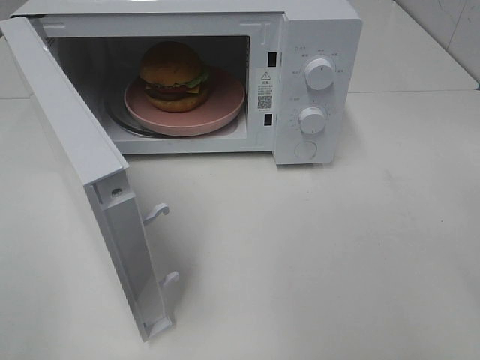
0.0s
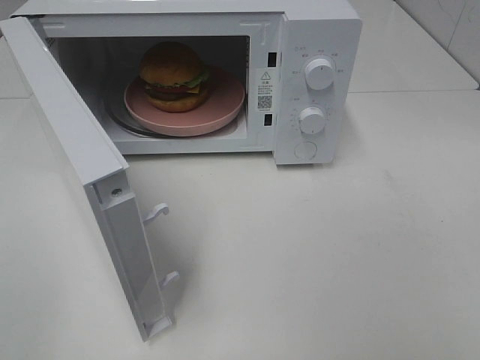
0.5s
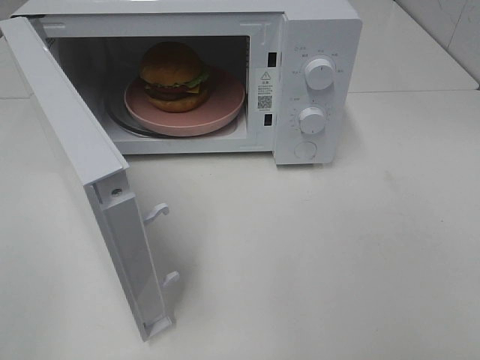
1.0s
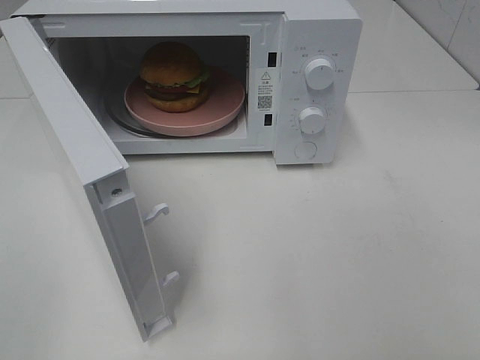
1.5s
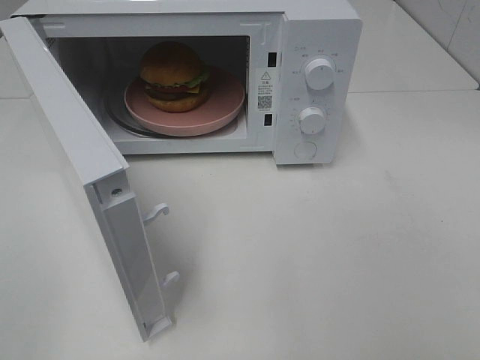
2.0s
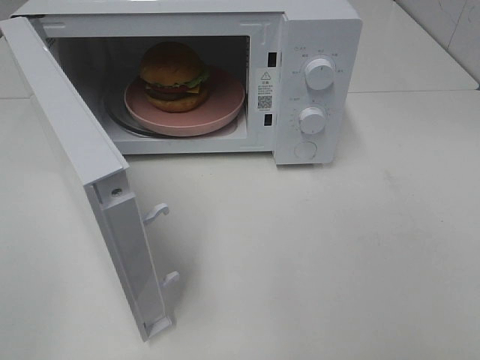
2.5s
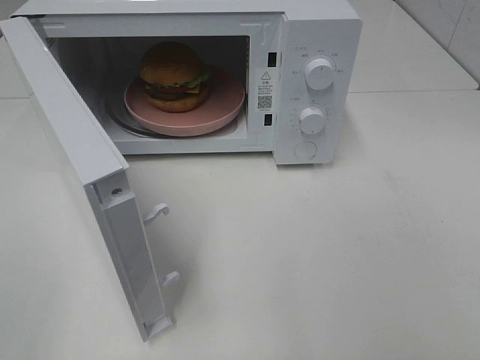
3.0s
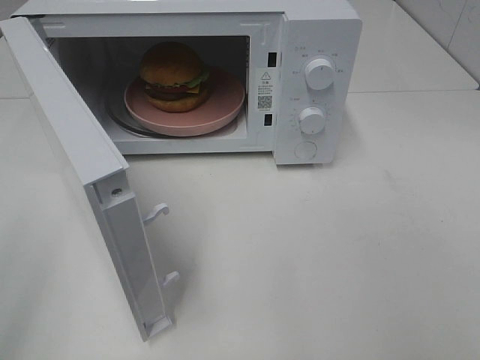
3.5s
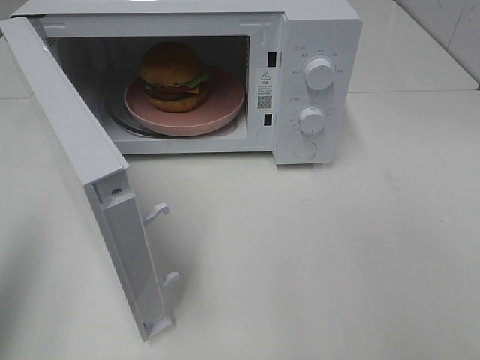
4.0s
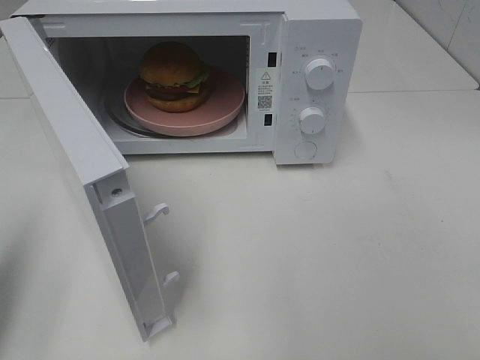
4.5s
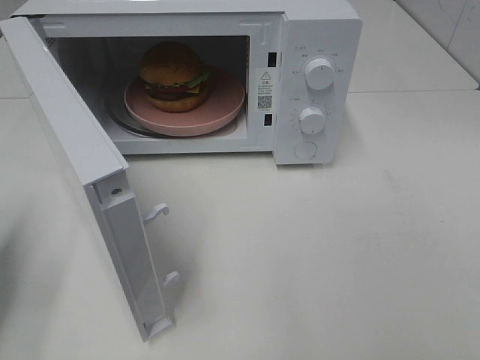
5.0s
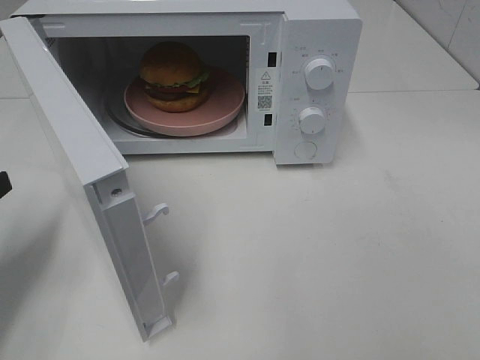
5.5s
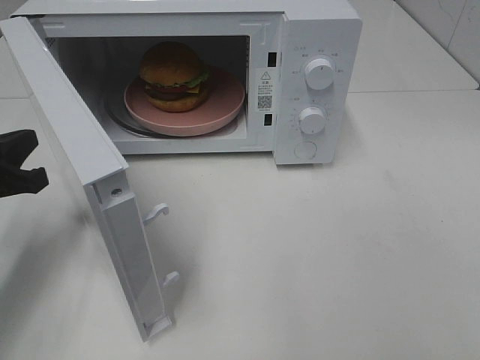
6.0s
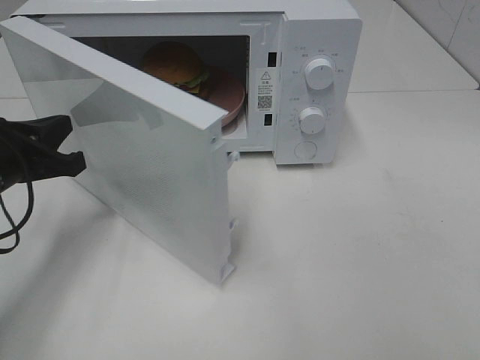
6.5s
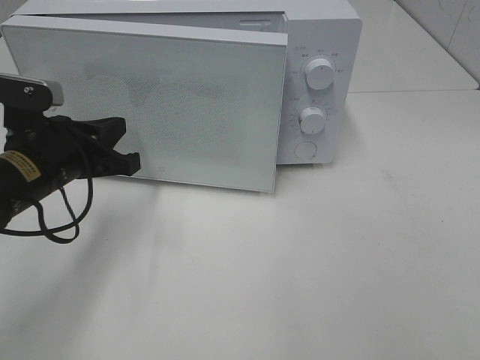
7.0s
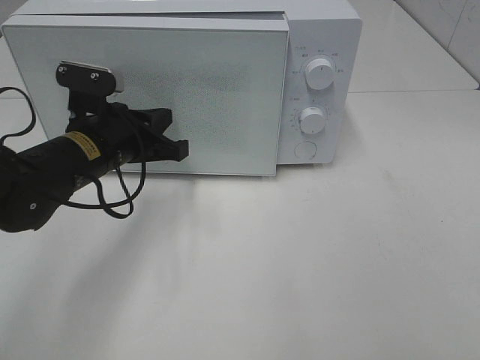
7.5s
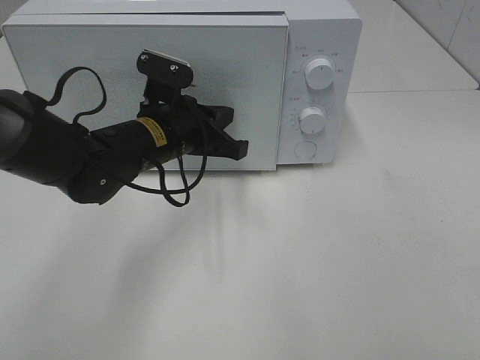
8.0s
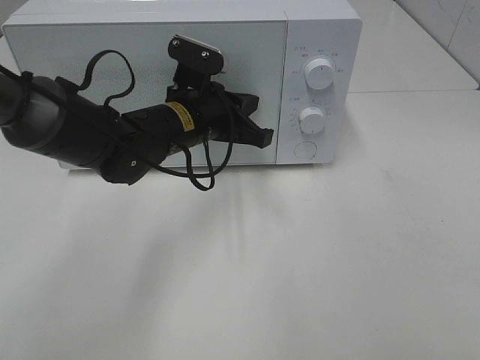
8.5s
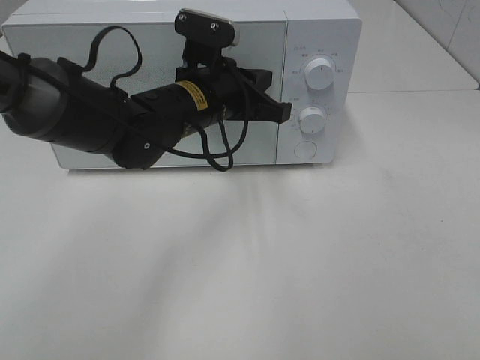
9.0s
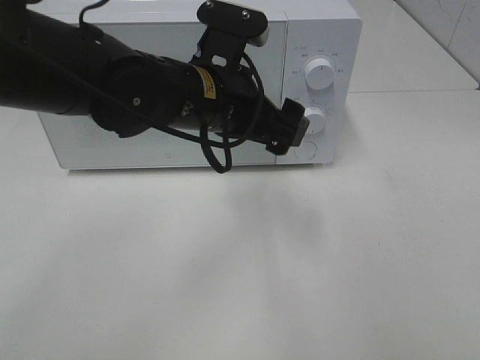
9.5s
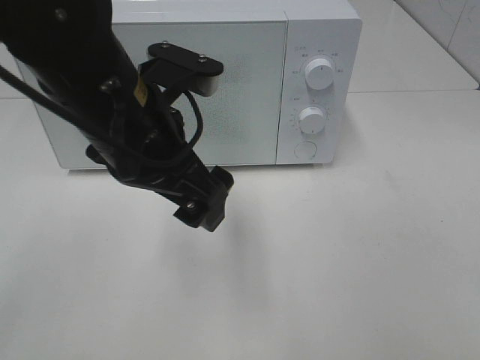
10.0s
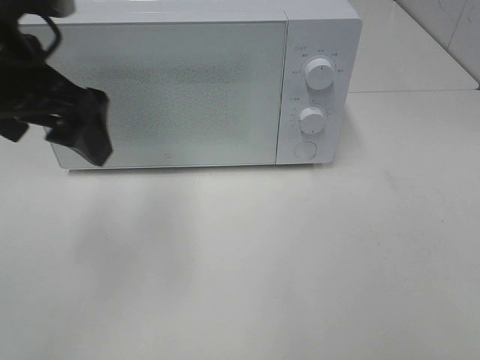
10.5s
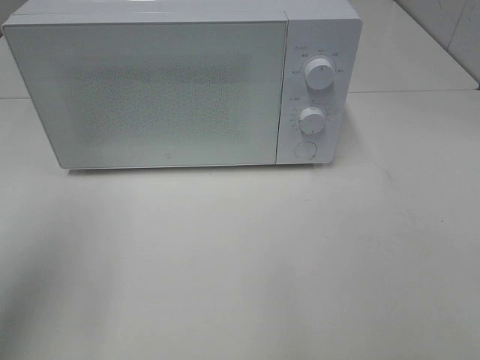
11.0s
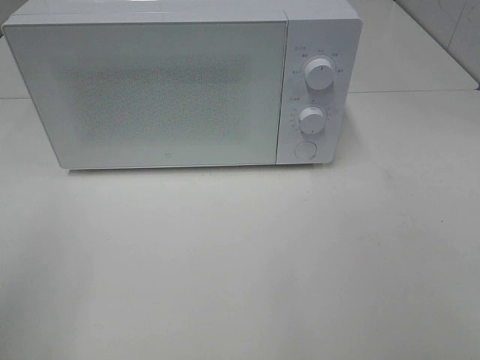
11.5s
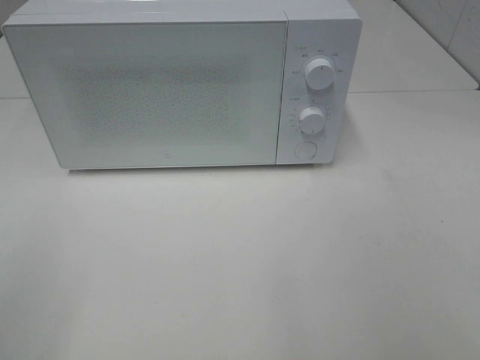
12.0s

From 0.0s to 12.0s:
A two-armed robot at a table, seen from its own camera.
Task of the whole recording: Heat the burger.
Step, from 0.0s to 9.0s: Left hand: close the microwave door.
From 2.0s to 4.0s: The left gripper travels forward by some 10 cm, and closes up.
From 4.0s to 6.0s: The left gripper travels downward and forward by about 25 cm.
From 6.0s to 8.0s: The left gripper goes approximately 20 cm to the right and forward.
From 8.0s to 10.0s: The left gripper moves upward and backward, roughly 15 cm, and opens its fingers.
From 10.0s to 12.0s: The left gripper goes some 30 cm to the left and backward.

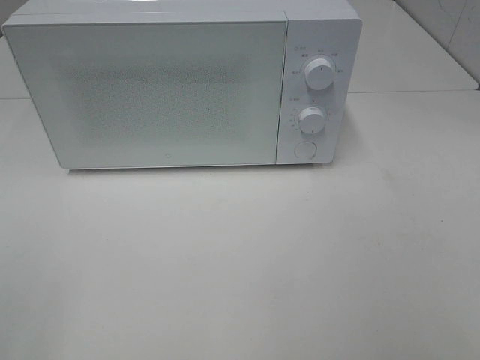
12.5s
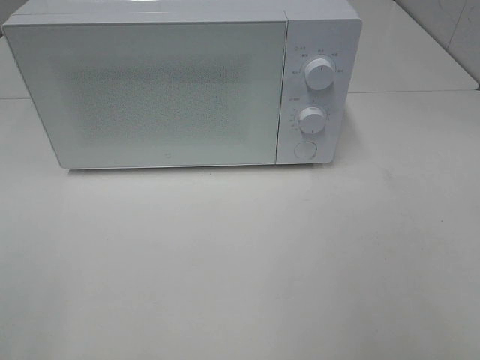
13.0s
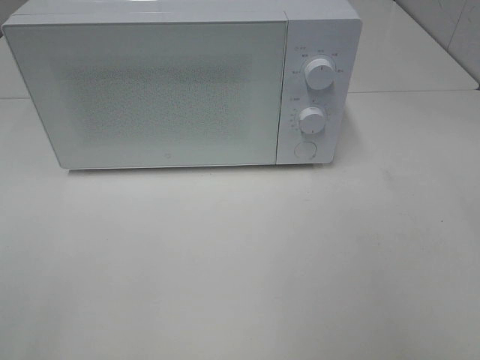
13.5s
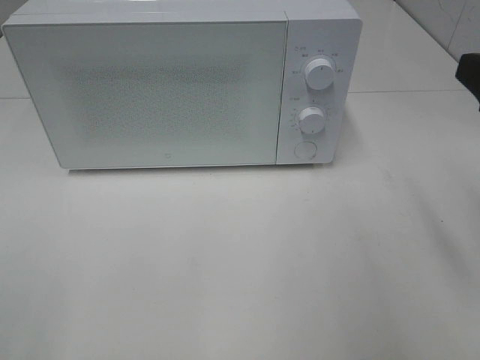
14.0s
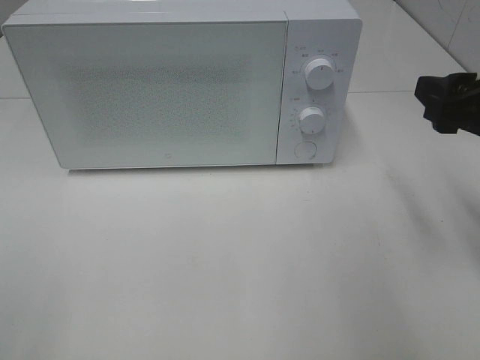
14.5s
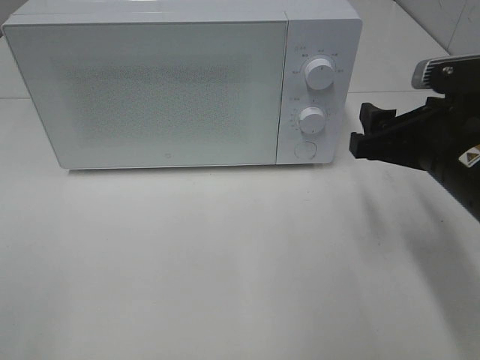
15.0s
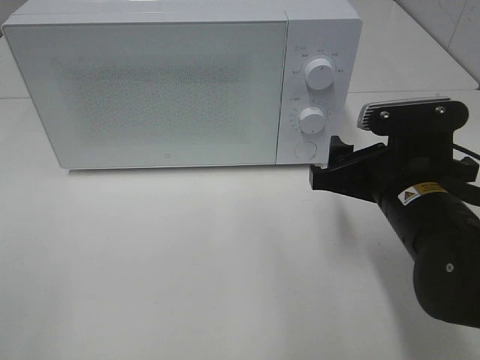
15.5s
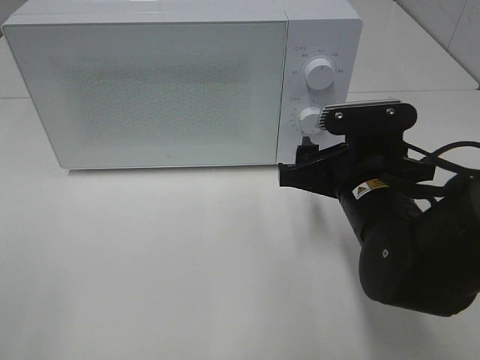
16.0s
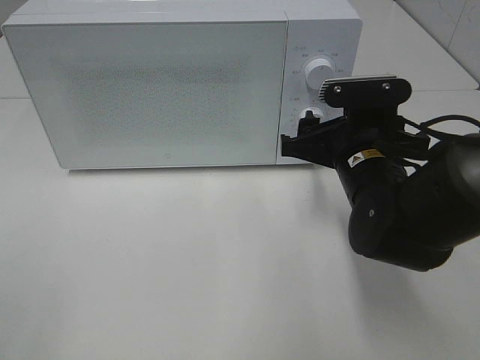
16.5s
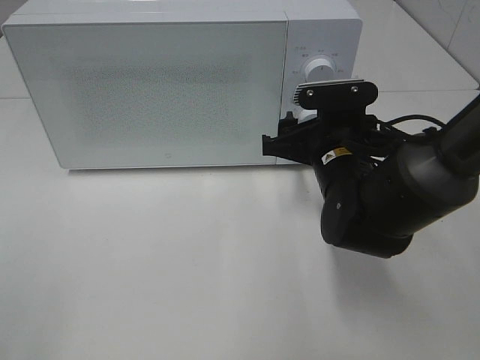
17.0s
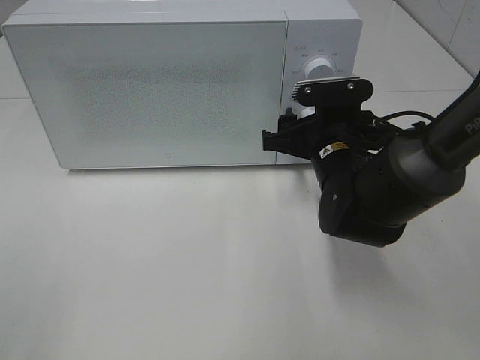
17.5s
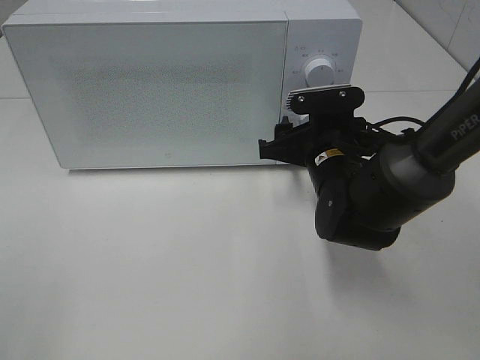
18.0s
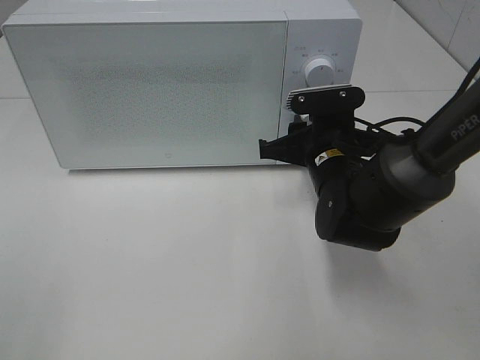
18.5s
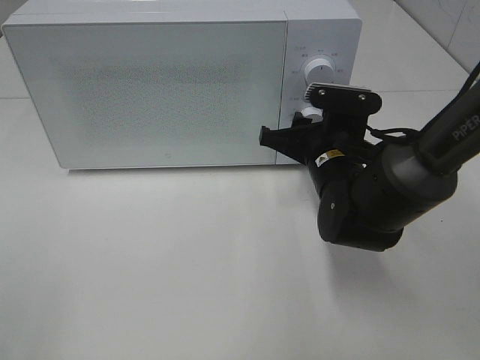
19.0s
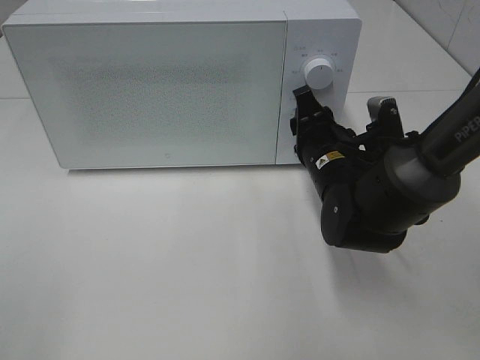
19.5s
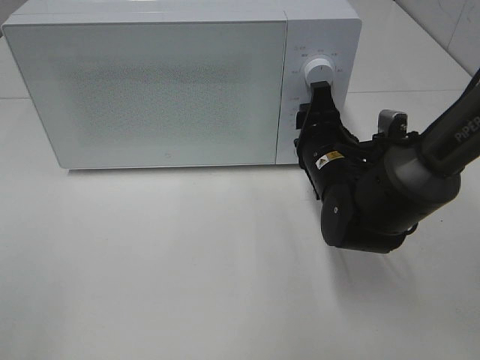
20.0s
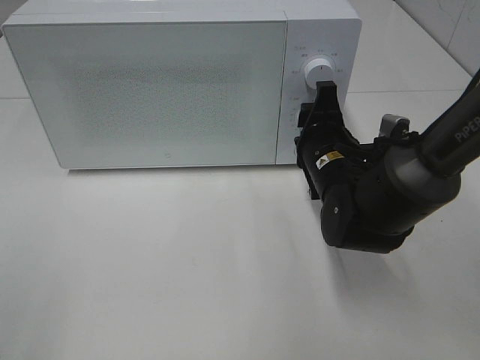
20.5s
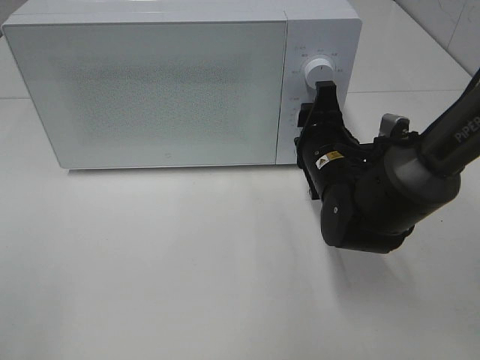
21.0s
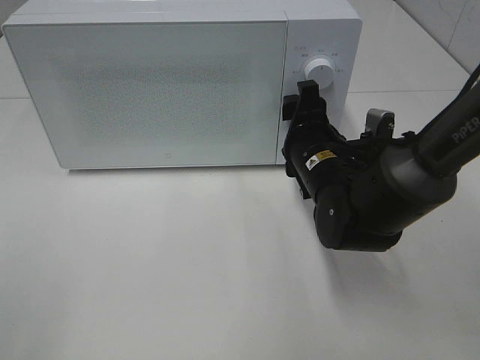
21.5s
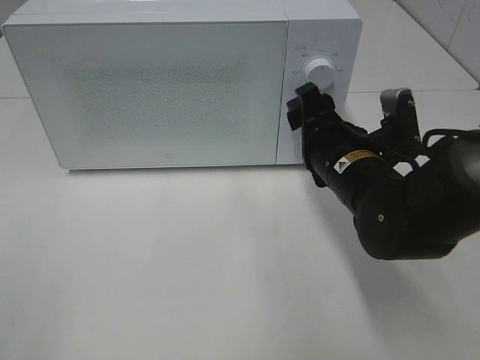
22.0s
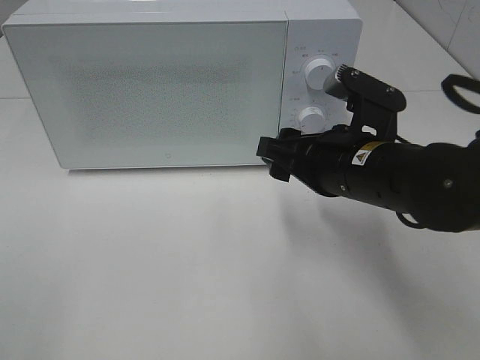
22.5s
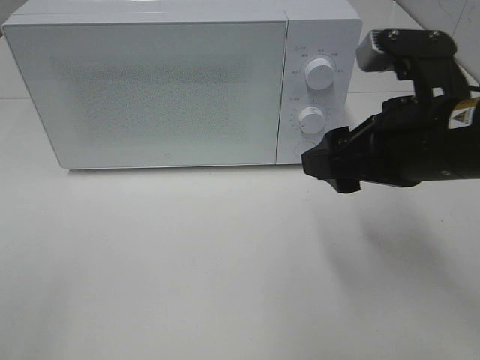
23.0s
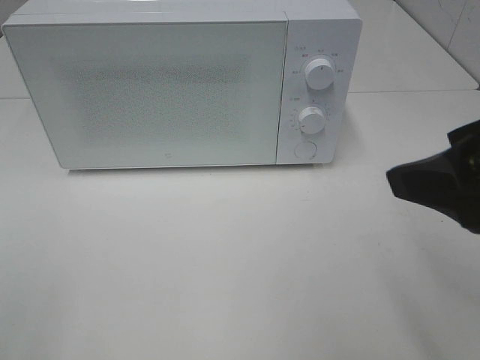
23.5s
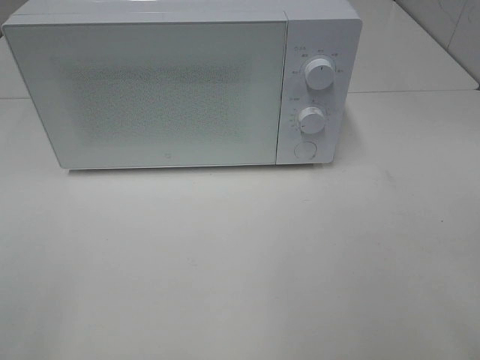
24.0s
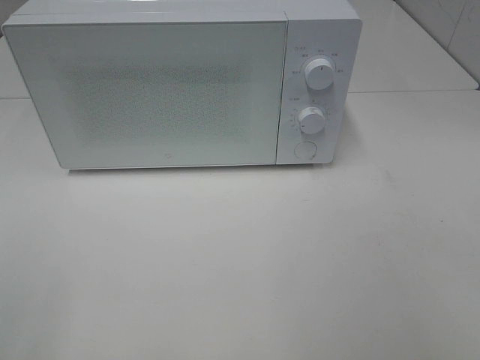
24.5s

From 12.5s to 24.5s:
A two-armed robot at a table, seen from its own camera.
Task of the whole recording: Heat the burger.
Step, from 12.5s to 21.5s: Right hand: twist timer button.
From 12.5s to 14.5s: The right gripper heads forward, covering some 25 cm.
From 14.5s to 16.5s: The right gripper moves to the left, downward and forward, approximately 15 cm.
From 16.5s to 18.5s: The right gripper shifts by approximately 5 cm, and closes up.
From 20.5s to 22.5s: The right gripper shifts about 10 cm backward and upward.
From 22.5s to 24.5s: The right gripper is displaced backward, to the right and upward by about 30 cm.

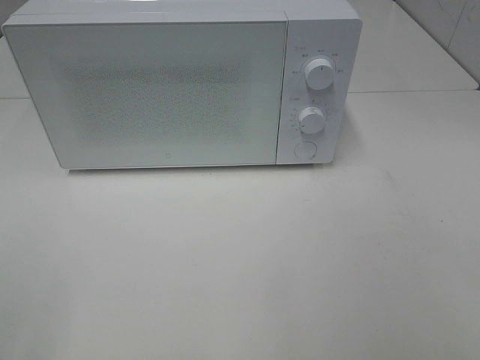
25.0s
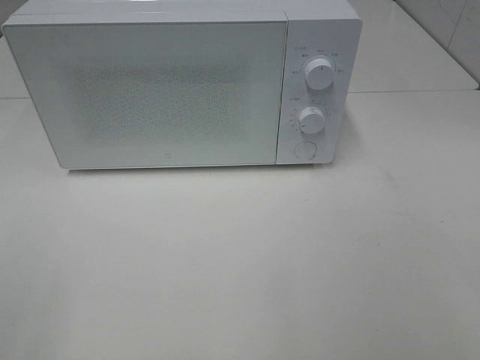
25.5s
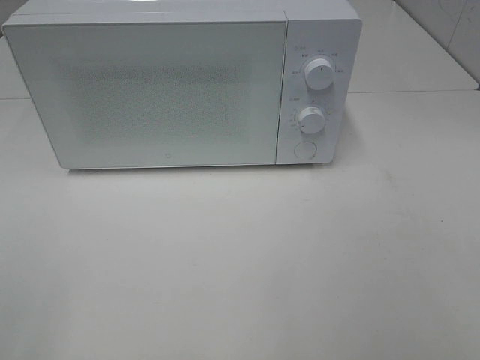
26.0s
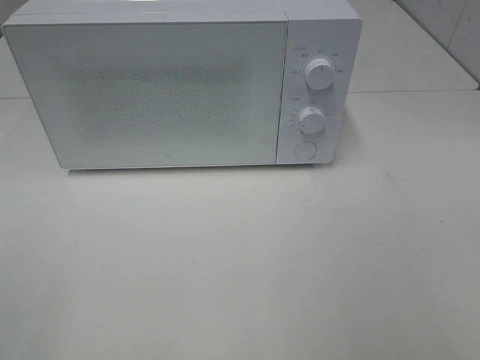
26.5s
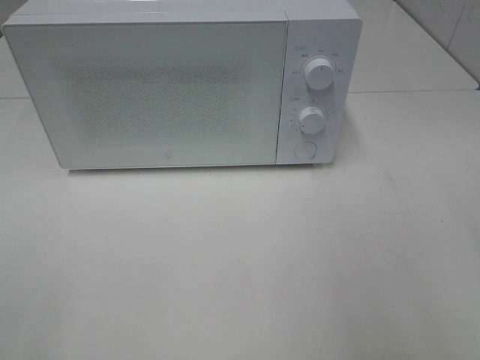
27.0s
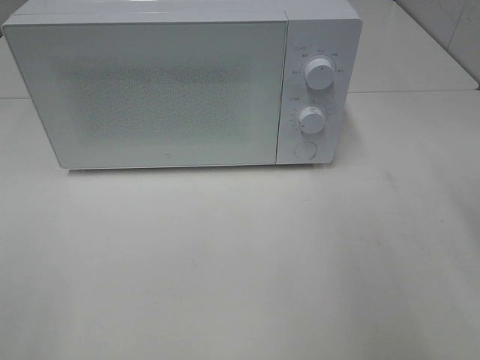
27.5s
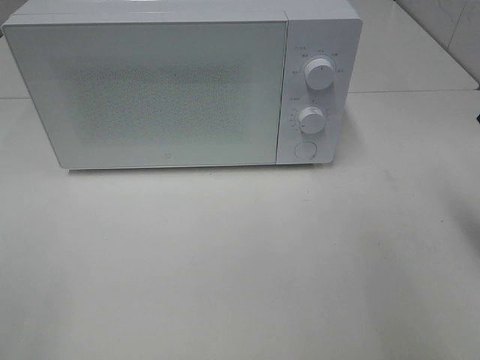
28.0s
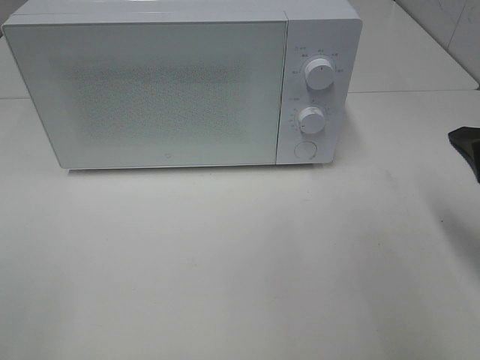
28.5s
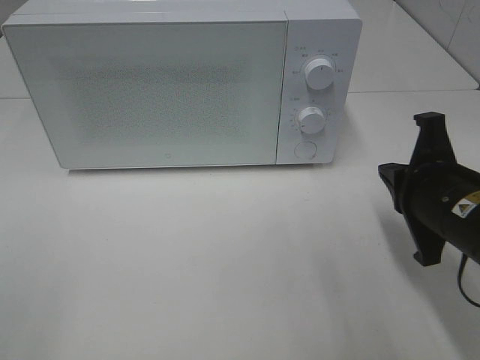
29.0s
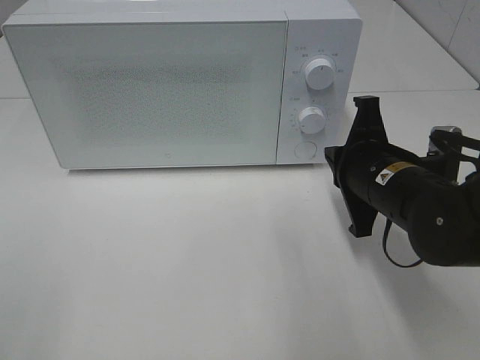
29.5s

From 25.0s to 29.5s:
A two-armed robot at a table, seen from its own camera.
Task of the whole recording: Heat the burger.
From 27.0s to 29.5s: The right gripper shifts some 25 cm downward, forward and to the left, and closes up.
